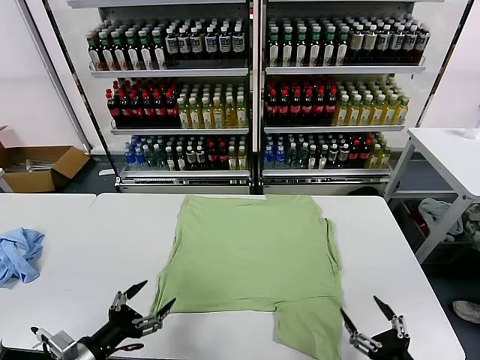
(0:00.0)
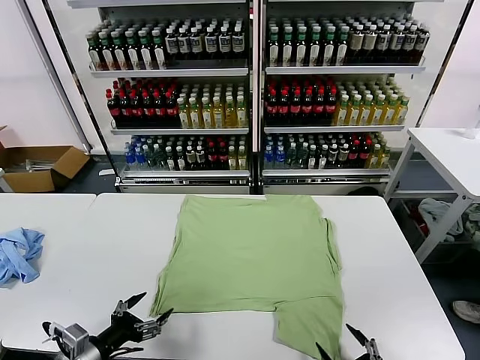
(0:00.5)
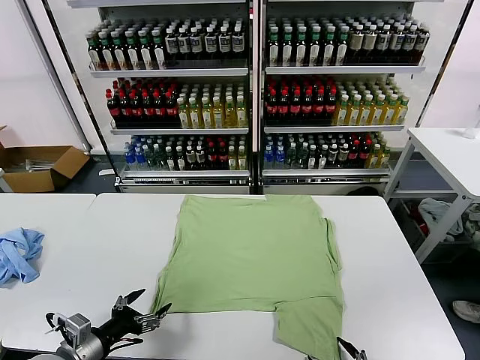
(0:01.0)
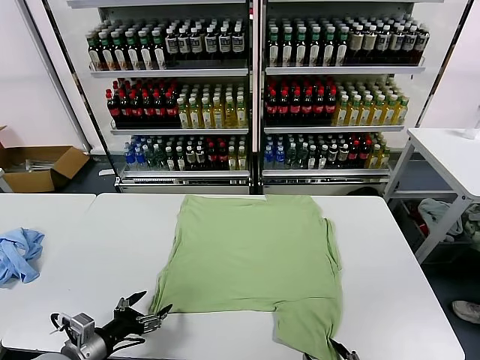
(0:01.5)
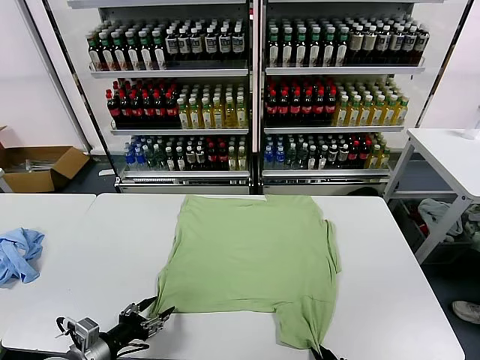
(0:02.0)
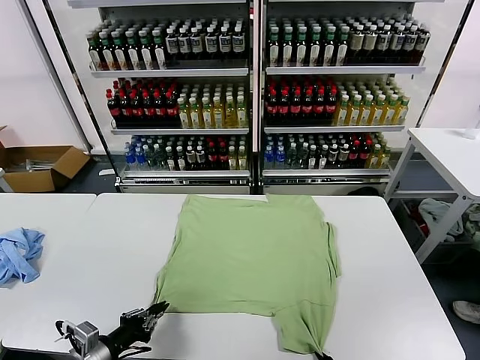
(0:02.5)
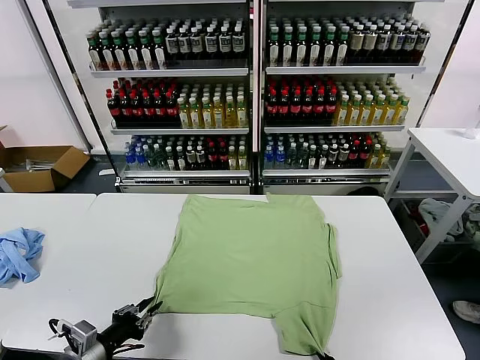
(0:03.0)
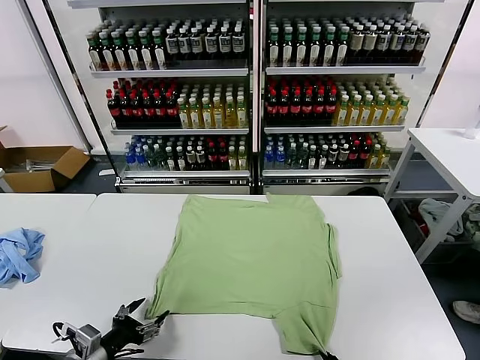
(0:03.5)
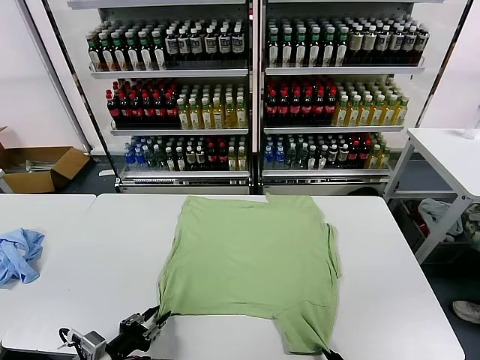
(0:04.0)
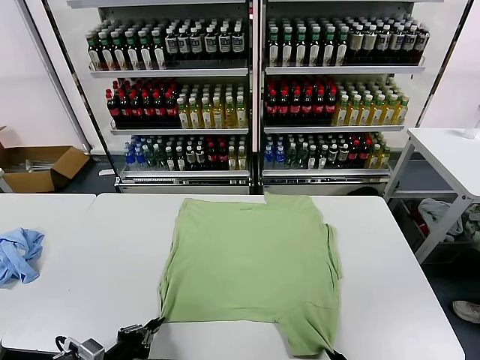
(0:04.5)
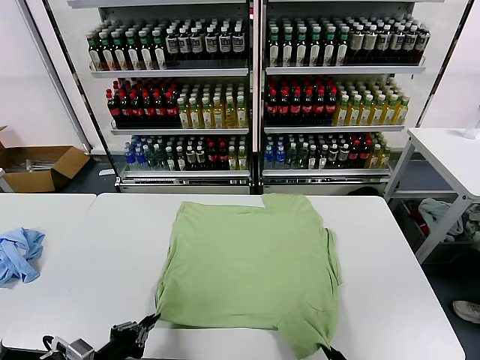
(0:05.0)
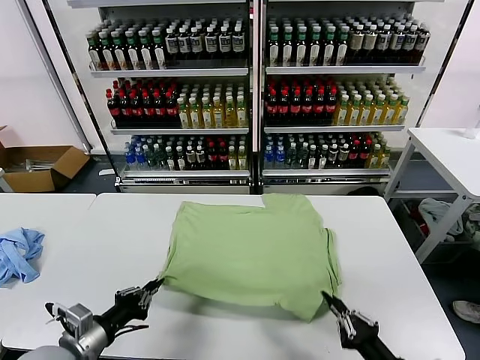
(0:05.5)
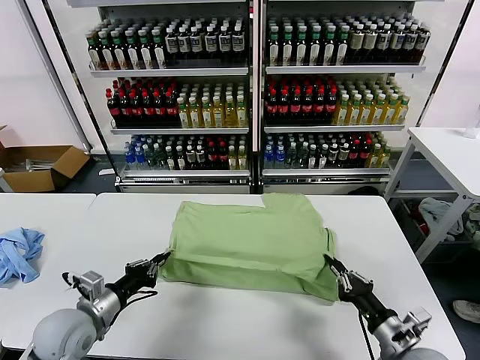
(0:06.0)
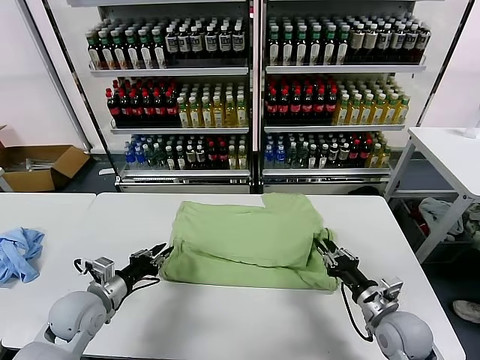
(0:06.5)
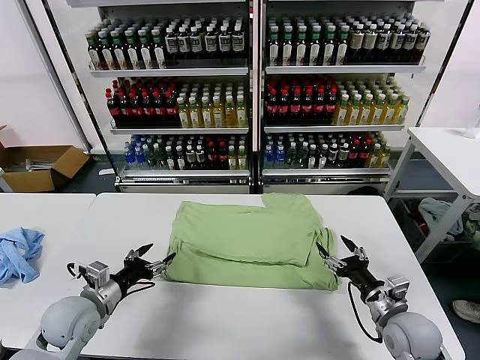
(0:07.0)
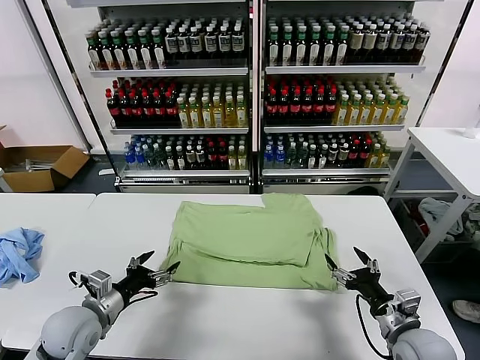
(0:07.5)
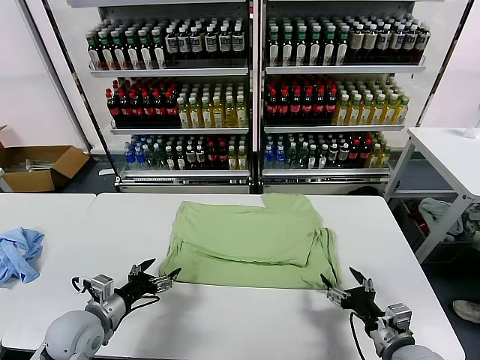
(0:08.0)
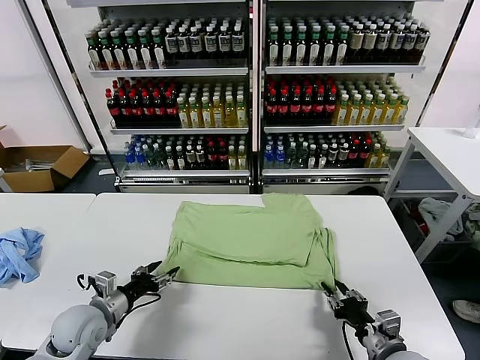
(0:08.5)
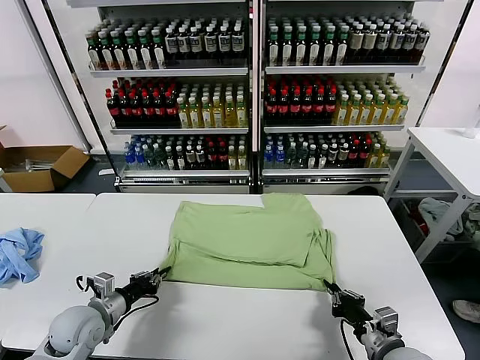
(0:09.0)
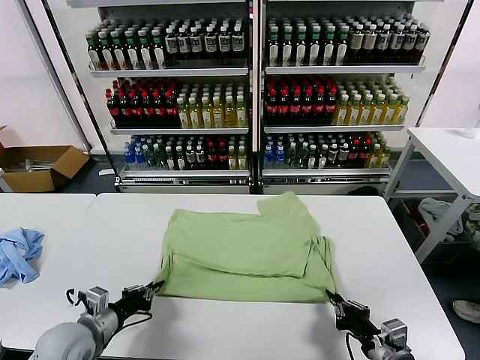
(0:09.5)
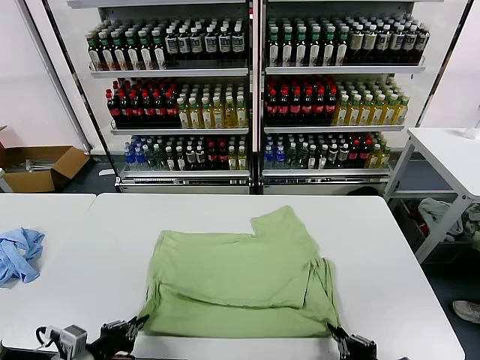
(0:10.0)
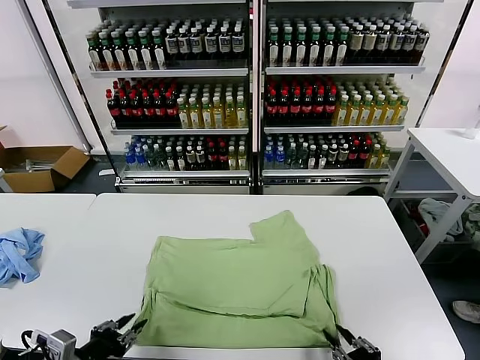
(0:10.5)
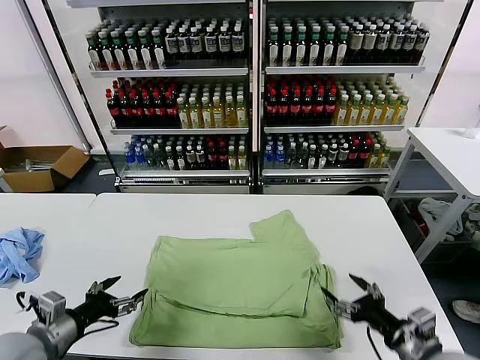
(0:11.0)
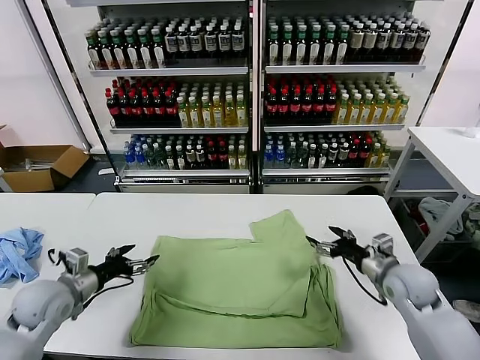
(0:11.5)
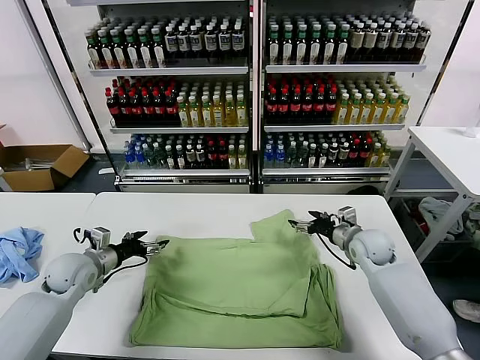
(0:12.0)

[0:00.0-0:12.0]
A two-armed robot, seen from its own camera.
Task of the whole recording: fold and organize the clothes.
Step, 0:00.0 to 0:04.0: use both grippers simultaneously to clamp the lower edge of the clothing fabric.
Step, 0:04.5 to 0:06.5: use both grippers to drag the lower edge of the fabric forward and fold it over the upper edge.
Step, 0:07.0 to 0:10.5: Drag the clothes downward with both gripper.
0:02.0 to 0:04.0: The grippers stay close to where they were, moving slightly.
0:04.0 to 0:06.0: The right gripper goes roughly 15 cm forward, while the left gripper is displaced forward by roughly 10 cm, and closes.
0:06.0 to 0:08.0: The right gripper opens up, while the left gripper opens.
0:08.0 to 0:10.0: The grippers both shift backward by approximately 10 cm. The left gripper closes. Meanwhile the right gripper closes its fingers.
0:10.0 to 0:12.0: The left gripper heads forward, covering about 25 cm, and opens, while the right gripper goes roughly 40 cm forward, and opens up.

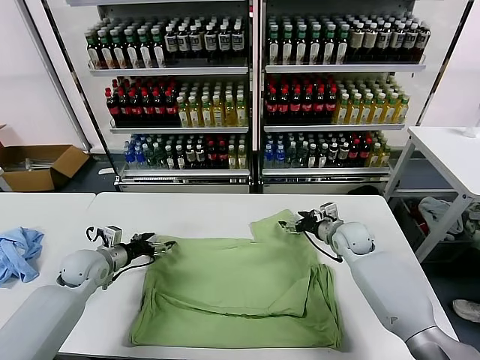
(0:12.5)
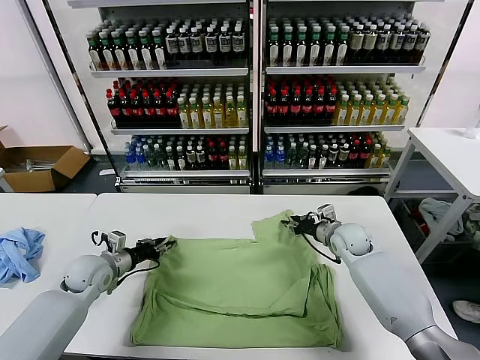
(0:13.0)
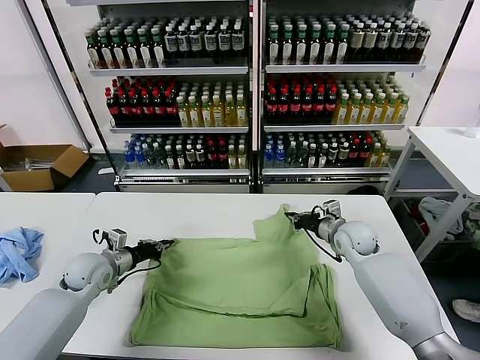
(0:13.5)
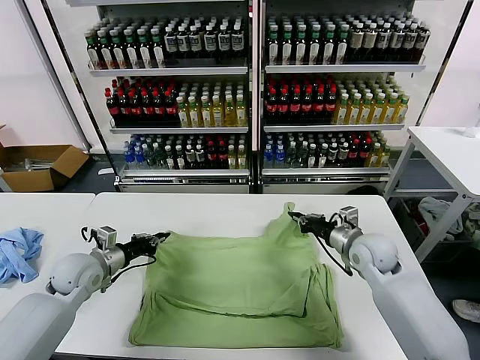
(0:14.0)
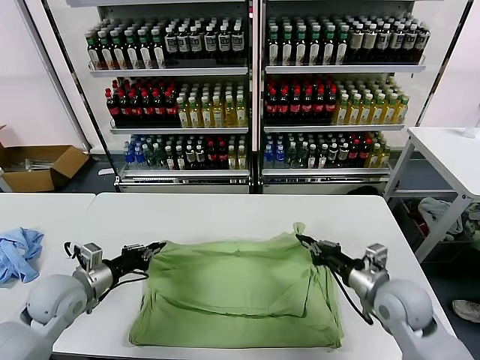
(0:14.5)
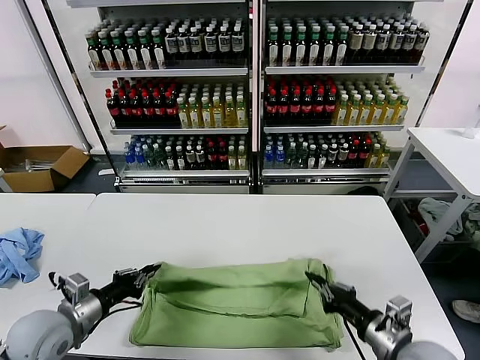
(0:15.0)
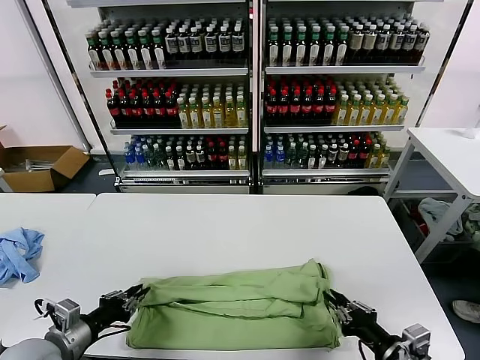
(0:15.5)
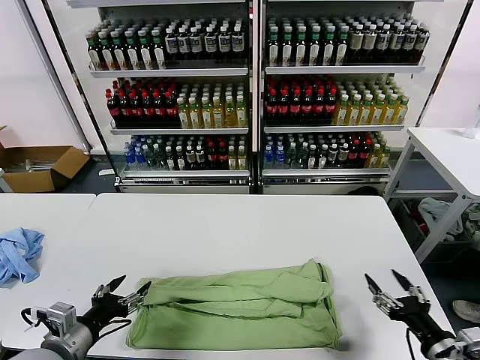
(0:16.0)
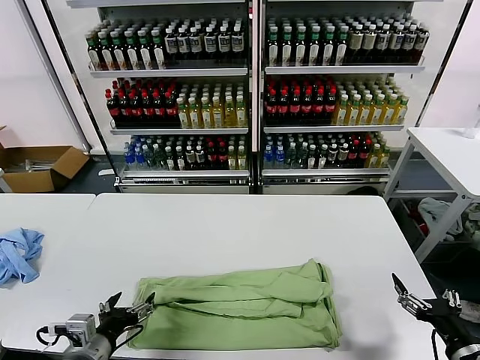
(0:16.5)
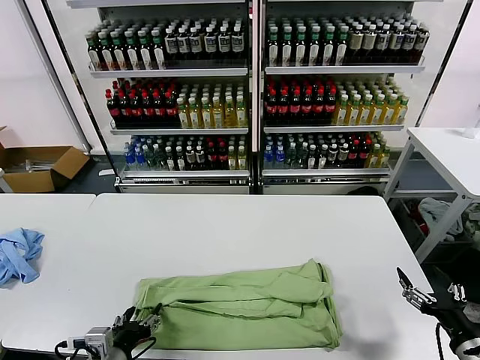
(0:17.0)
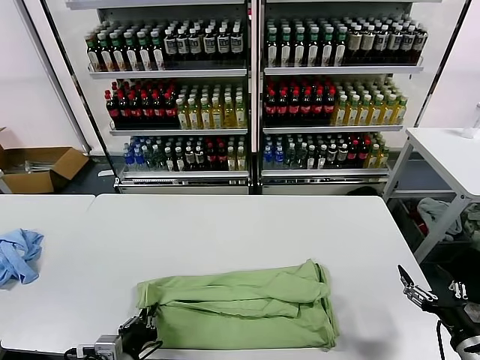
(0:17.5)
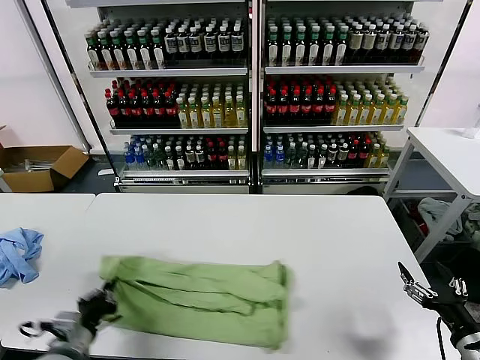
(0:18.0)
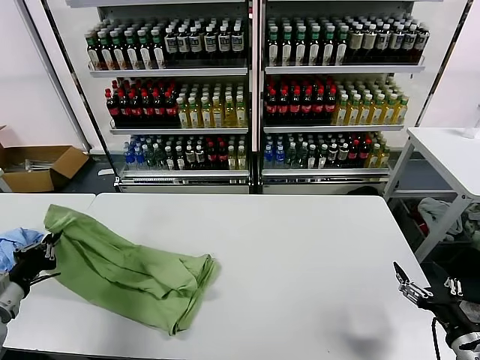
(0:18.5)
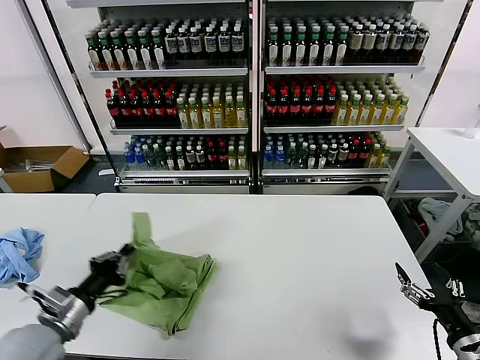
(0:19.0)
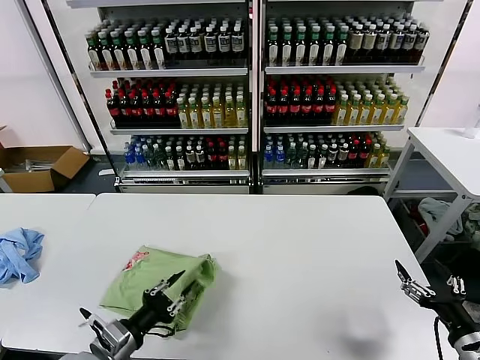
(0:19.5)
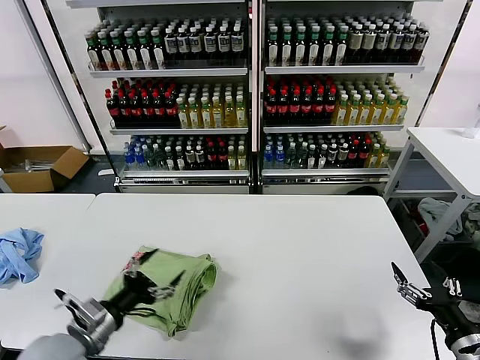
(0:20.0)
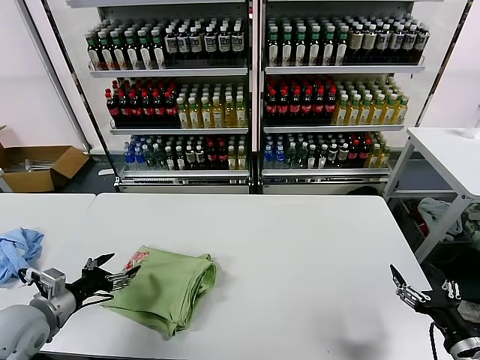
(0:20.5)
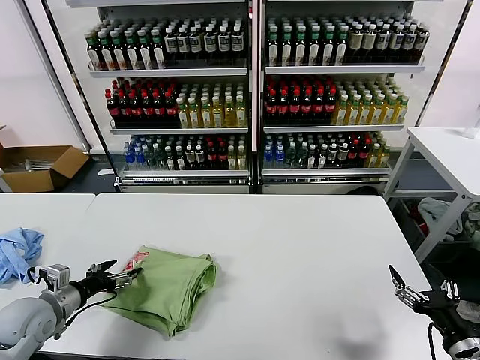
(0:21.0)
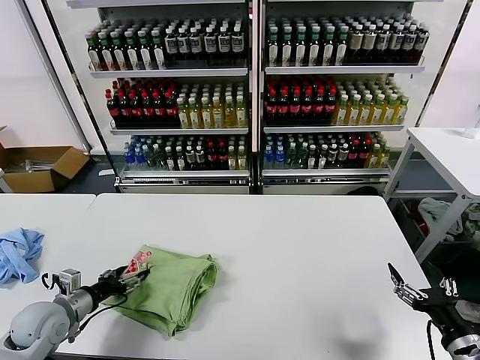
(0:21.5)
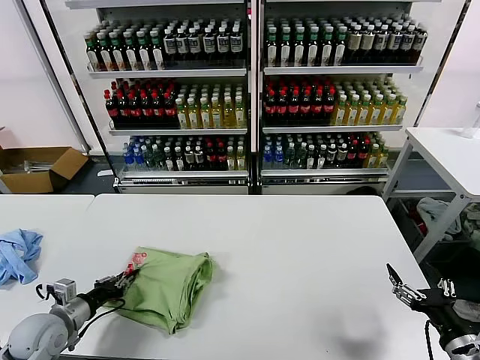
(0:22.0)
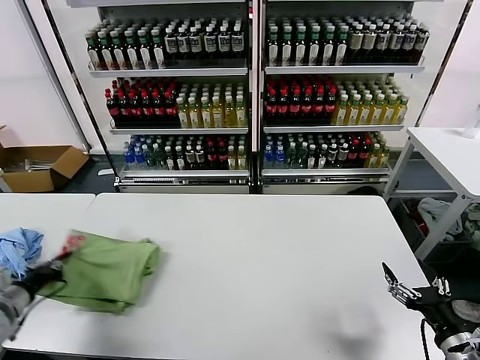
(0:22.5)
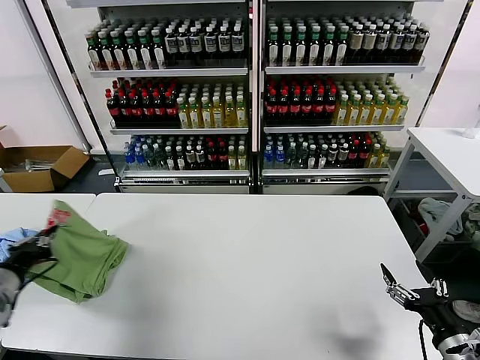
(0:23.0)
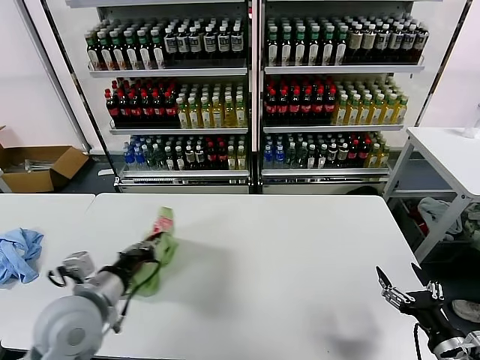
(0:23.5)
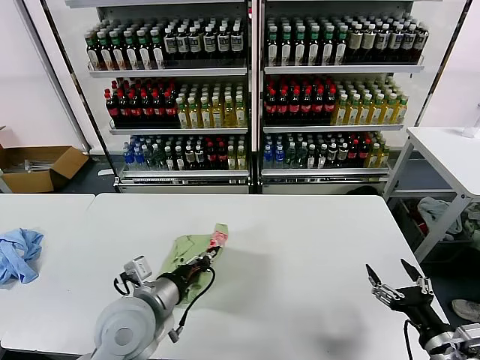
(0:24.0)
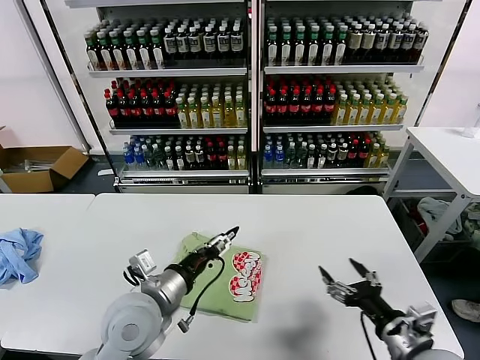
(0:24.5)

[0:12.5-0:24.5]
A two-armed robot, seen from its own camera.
Task of the whole recording: fold and organize the clothes.
Step, 0:13.5 to 0:15.5: use both grippers to drag the upper edge of the fabric backward and fold it over the lower edge.
Step, 0:16.0 to 0:17.5: use the left gripper to clamp the left edge of the fabric.
Step, 0:18.0 to 0:19.5: use the left gripper to drag the left edge of the fabric to the left and folds it over the right edge.
Step, 0:20.0 to 0:24.0: Flip the folded clothes over with left gripper.
0:12.5 to 0:14.5: The left gripper is displaced backward and upward by some 10 cm, and closes. The right gripper is displaced backward by some 20 cm, and closes up.
0:14.5 to 0:16.5: The two grippers go about 20 cm backward and to the right. The right gripper opens its fingers. The left gripper opens up.
0:16.5 to 0:18.5: The left gripper moves to the left, some 20 cm, and closes.
0:18.5 to 0:20.5: The left gripper moves roughly 20 cm to the right and comes back, and opens up.
0:20.5 to 0:22.5: The left gripper heads to the left, covering roughly 10 cm, and closes up.
0:22.5 to 0:24.5: The left gripper shifts some 30 cm to the right, and opens, while the right gripper goes about 10 cm to the left.

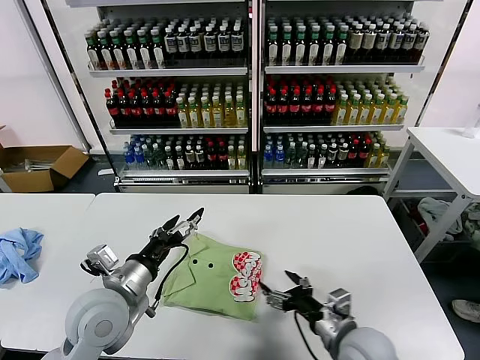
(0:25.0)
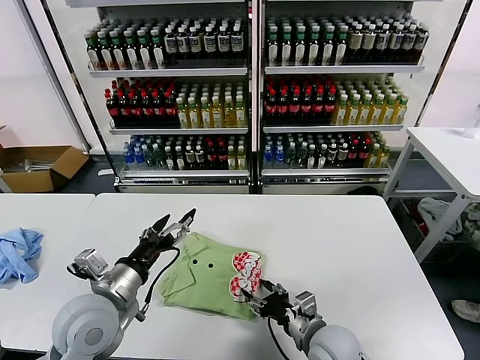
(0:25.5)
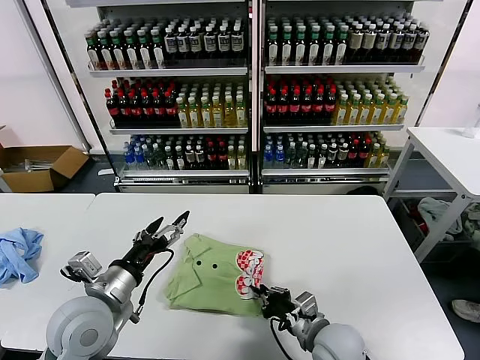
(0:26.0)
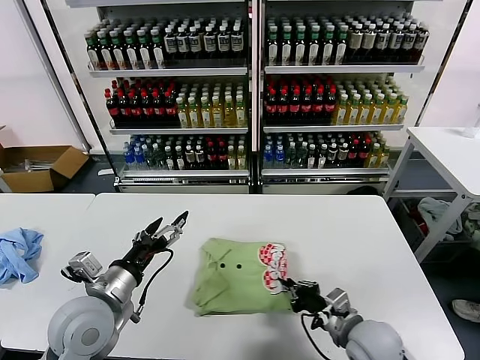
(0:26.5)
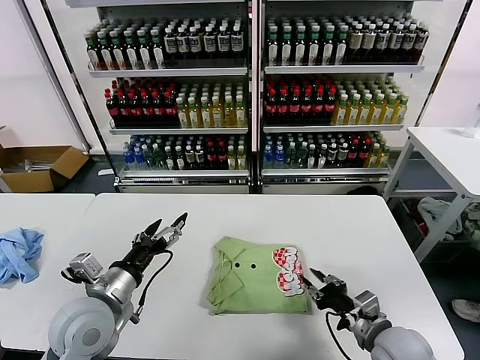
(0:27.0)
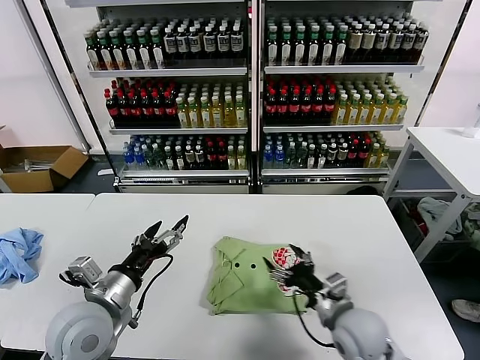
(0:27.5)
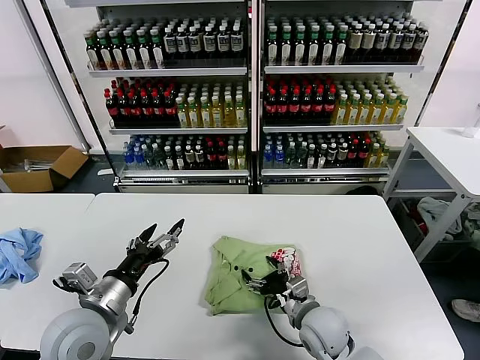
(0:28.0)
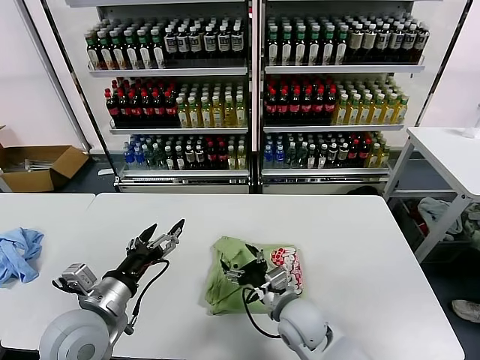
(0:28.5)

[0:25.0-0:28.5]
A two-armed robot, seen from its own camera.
Task of the whole recording: fold and organize the clothes.
0:25.0 to 0:27.0: The right gripper travels to the right by roughly 5 cm, and closes its fingers.
0:27.0 to 0:28.5: The right gripper is displaced to the left and forward by approximately 20 cm, and opens.
